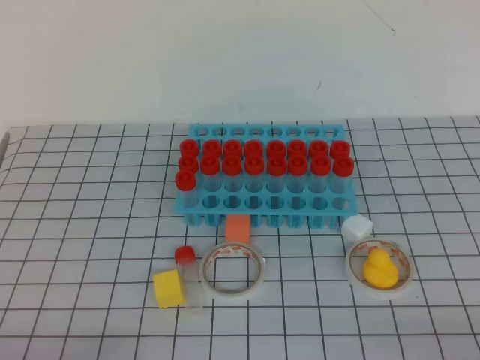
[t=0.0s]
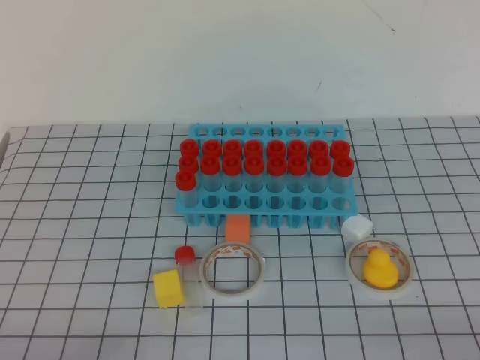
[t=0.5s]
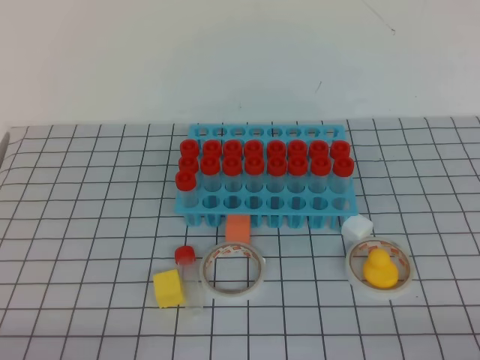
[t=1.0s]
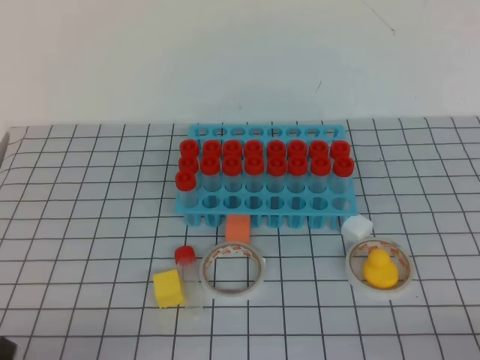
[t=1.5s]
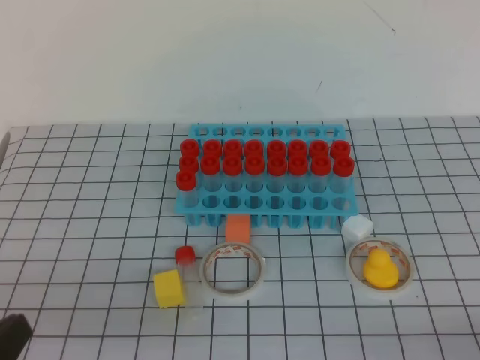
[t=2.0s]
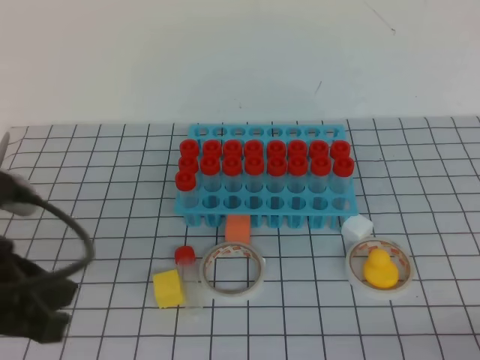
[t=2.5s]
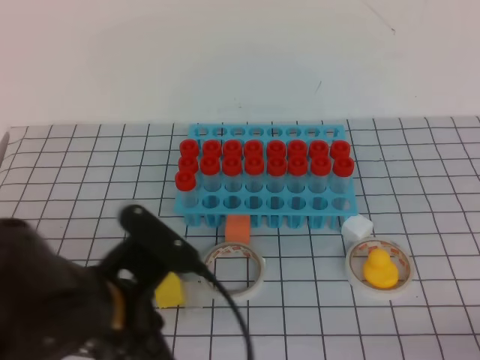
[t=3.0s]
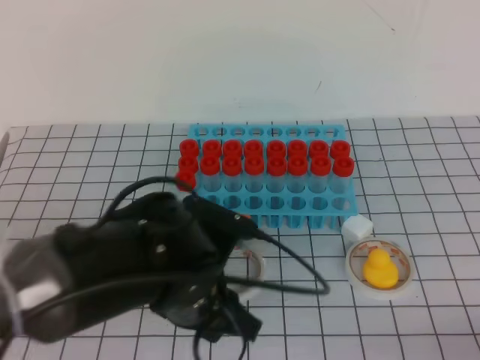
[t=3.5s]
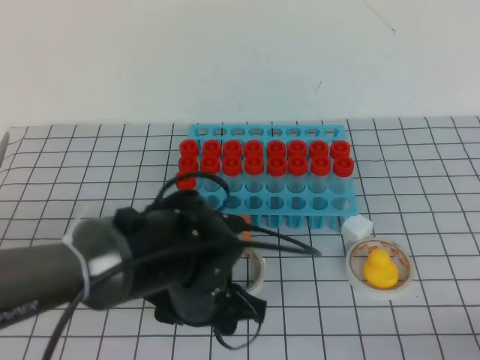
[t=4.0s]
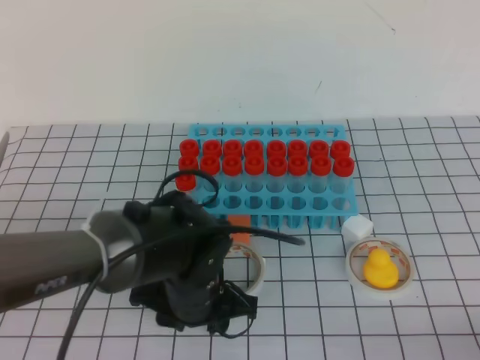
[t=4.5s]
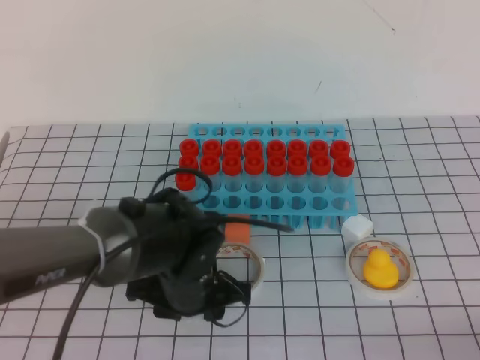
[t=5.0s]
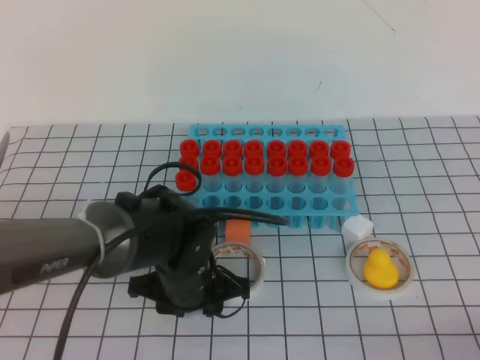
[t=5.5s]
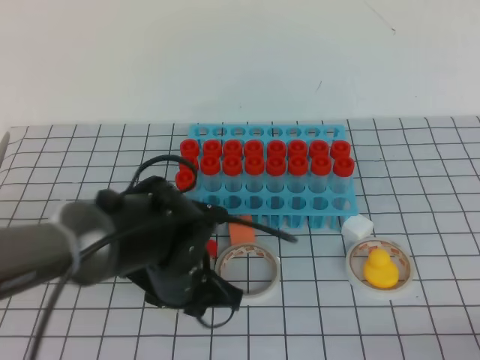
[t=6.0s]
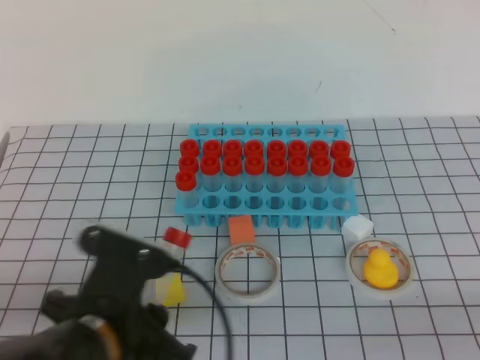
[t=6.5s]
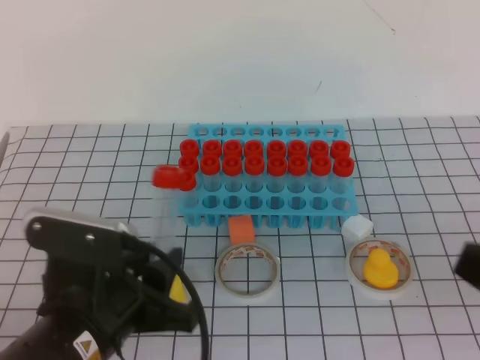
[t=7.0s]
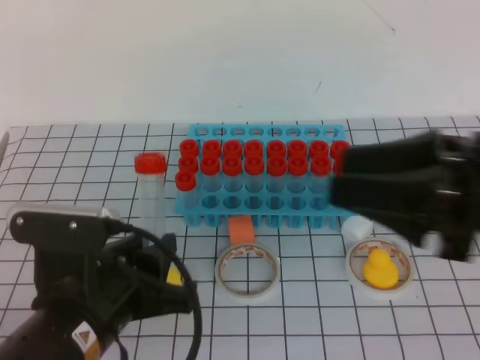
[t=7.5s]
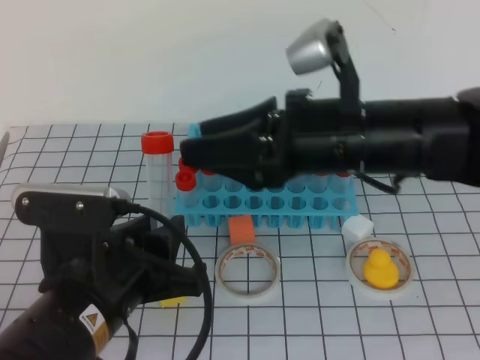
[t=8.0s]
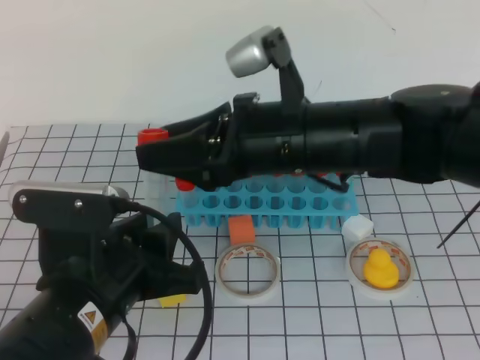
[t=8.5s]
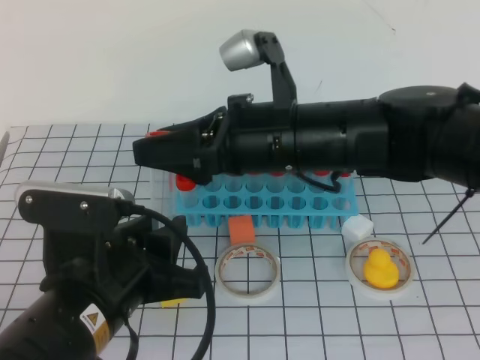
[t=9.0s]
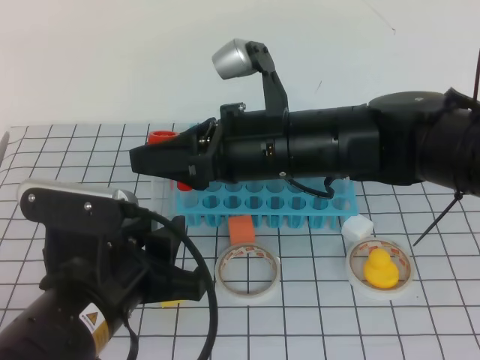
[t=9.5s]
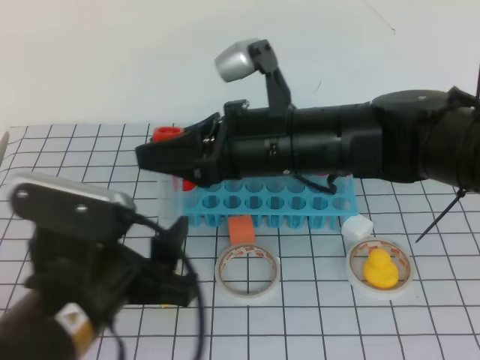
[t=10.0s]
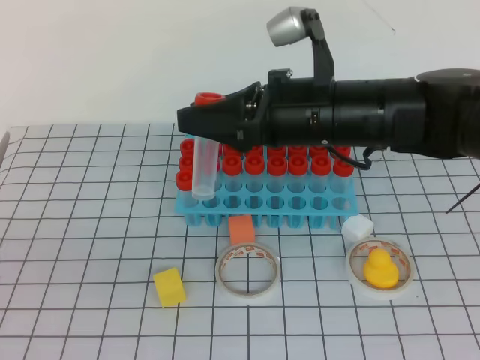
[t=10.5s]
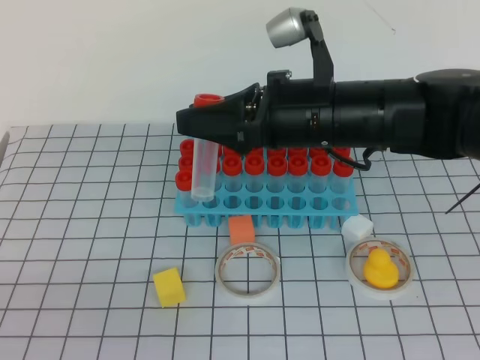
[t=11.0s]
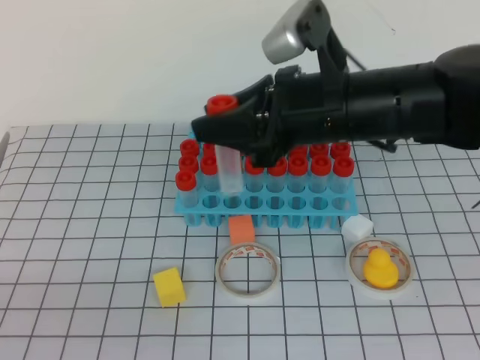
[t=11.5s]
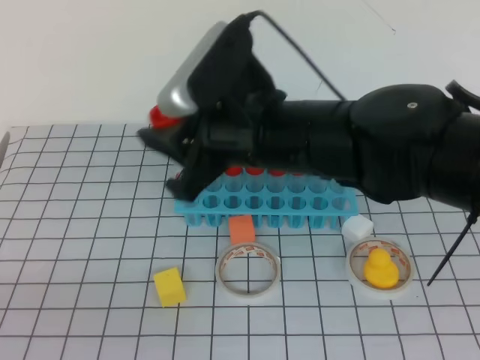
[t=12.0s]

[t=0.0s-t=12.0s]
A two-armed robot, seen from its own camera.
t=0.0s to t=2.0s: The left gripper travels upward by about 10 cm.
t=2.0s to t=4.0s: The left gripper heads forward and to the right, covering approximately 25 cm, and opens.
t=4.0s to t=6.0s: The left gripper closes.
t=6.0s to t=8.0s: The left gripper heads backward, upward and to the left, covering some 15 cm; the right gripper moves forward, to the left and upward, roughly 35 cm, and opens up.
t=8.0s to t=10.0s: The right gripper changes place by approximately 5 cm, and closes up; the left gripper opens.
t=10.0s to t=12.0s: The left gripper goes some 20 cm to the left and backward, and closes its fingers.

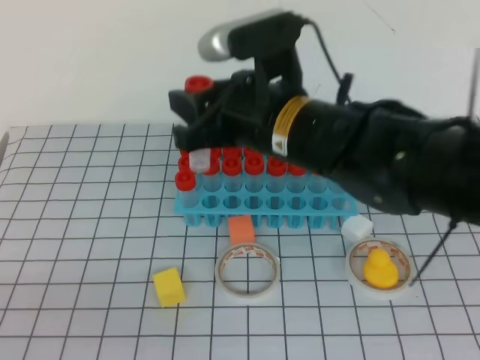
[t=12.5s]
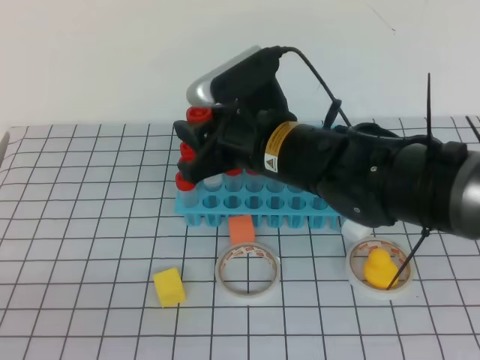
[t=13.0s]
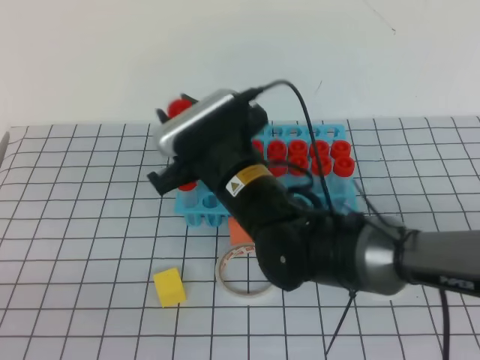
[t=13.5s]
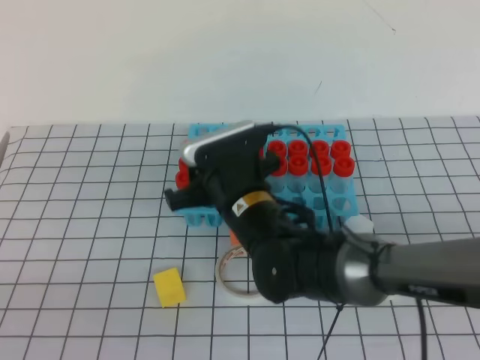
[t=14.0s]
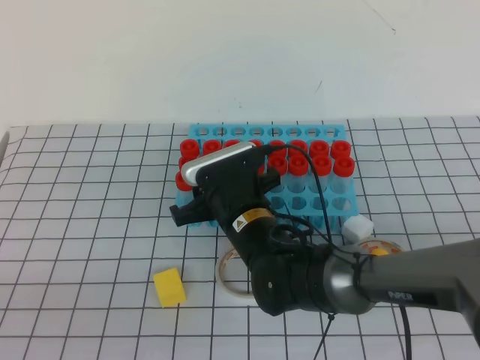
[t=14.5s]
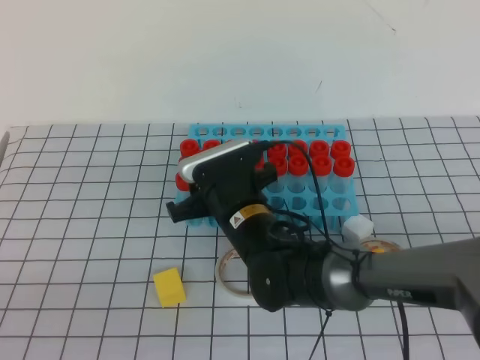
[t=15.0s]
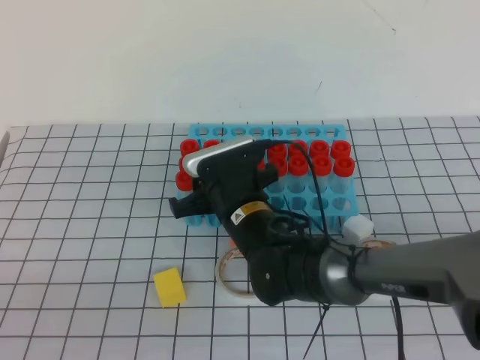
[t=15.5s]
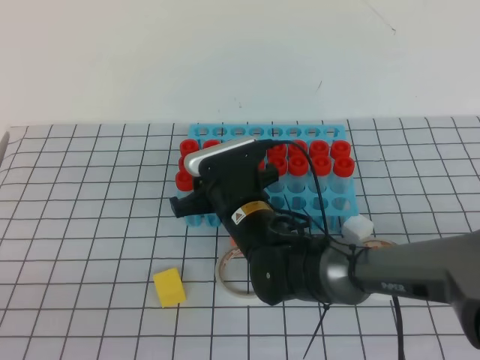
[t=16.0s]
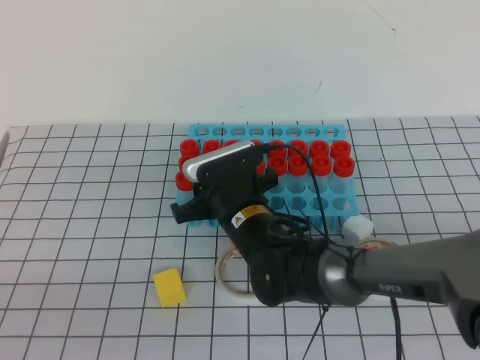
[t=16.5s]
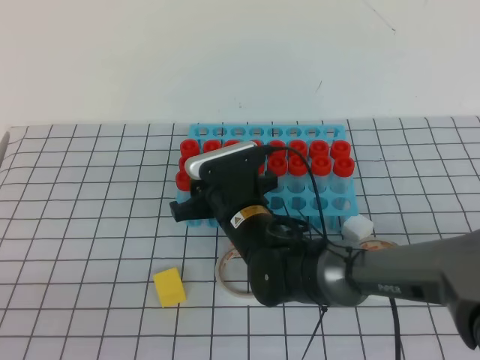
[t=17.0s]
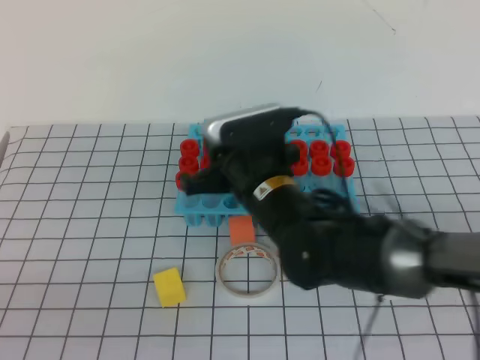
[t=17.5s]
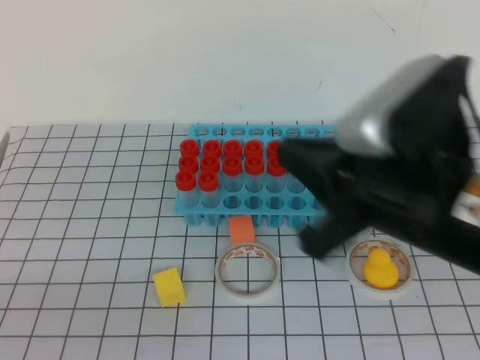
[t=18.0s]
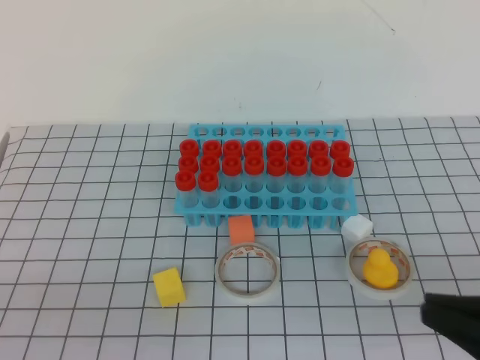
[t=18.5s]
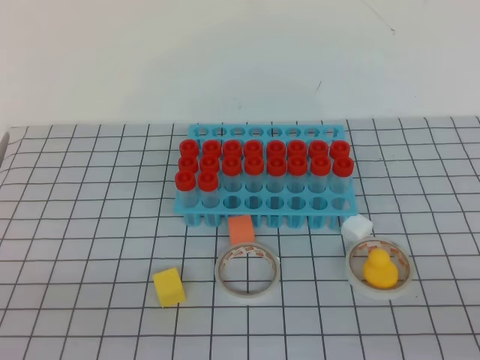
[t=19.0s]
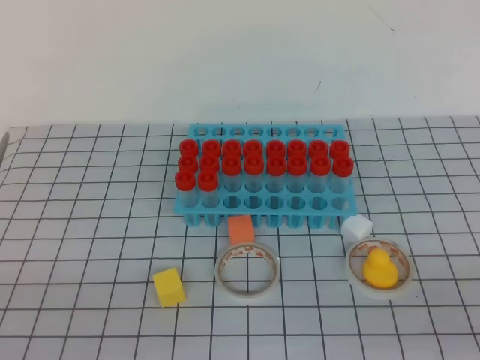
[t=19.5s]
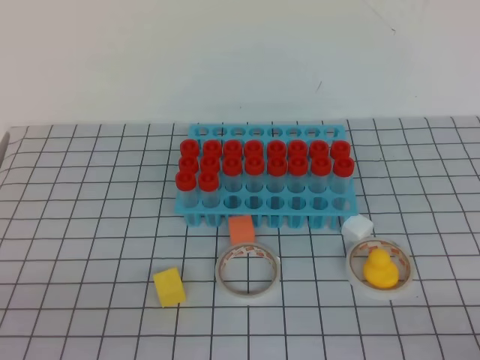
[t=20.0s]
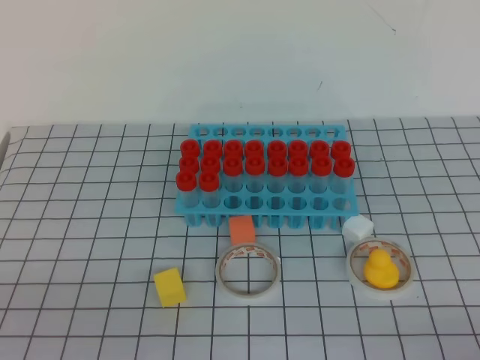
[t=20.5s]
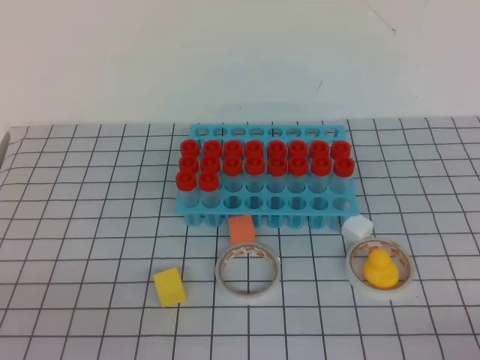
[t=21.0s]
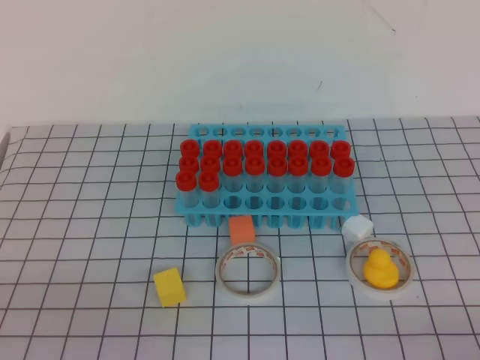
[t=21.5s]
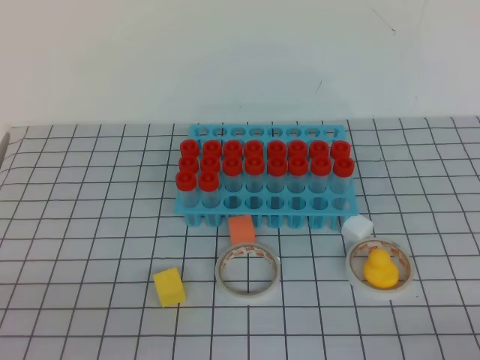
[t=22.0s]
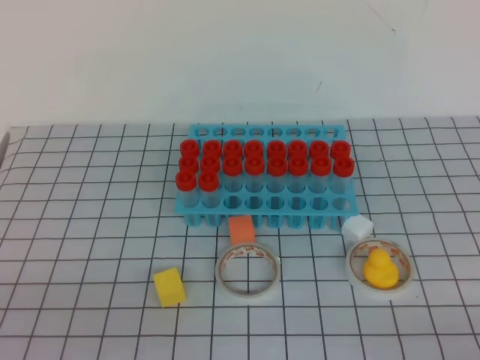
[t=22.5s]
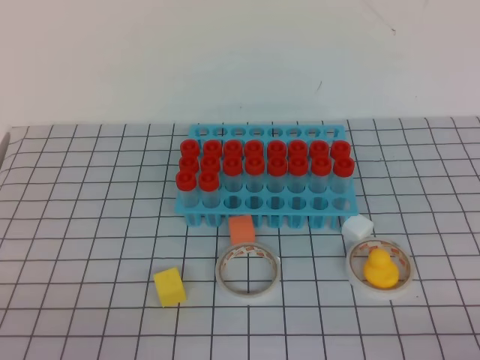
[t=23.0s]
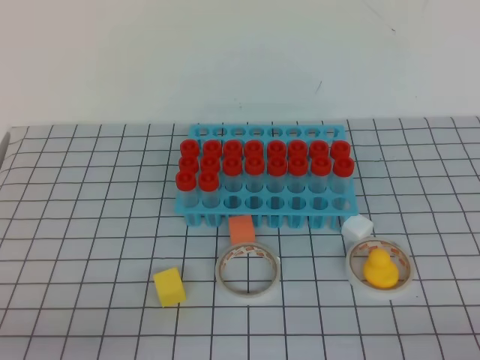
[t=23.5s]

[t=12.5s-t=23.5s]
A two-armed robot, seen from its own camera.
t=12.5s to t=14.5s: The right gripper heads downward, covering some 15 cm.
t=14.5s to t=16.0s: Both grippers stay put.
t=16.0s to t=18.0s: The right gripper heads upward, backward and to the right, covering approximately 25 cm, and closes its fingers.
t=18.0s to t=20.0s: The right gripper travels to the right, downward and backward by some 30 cm.

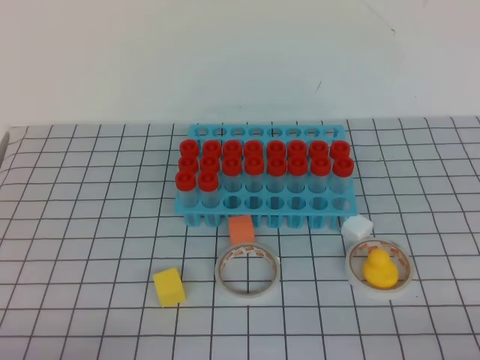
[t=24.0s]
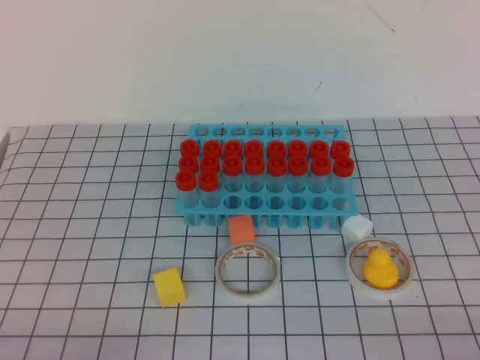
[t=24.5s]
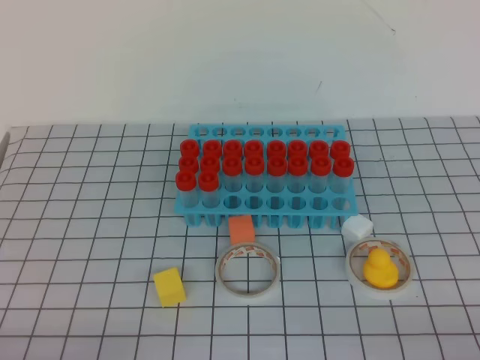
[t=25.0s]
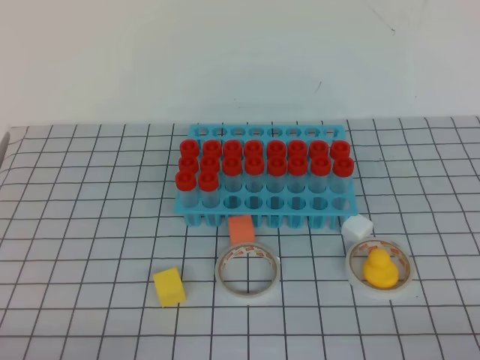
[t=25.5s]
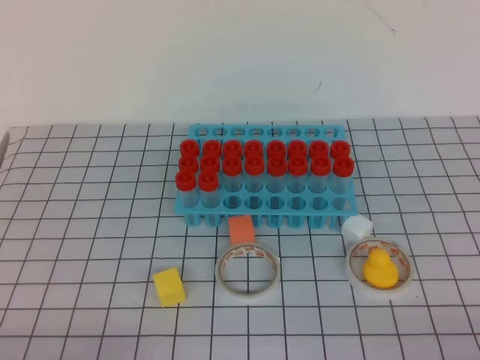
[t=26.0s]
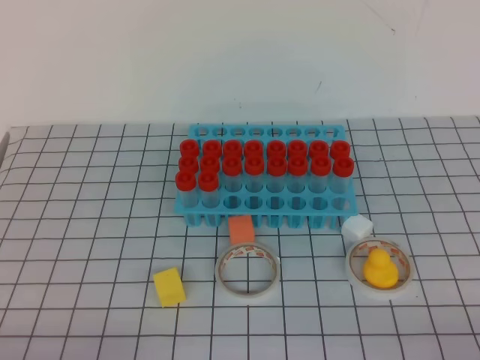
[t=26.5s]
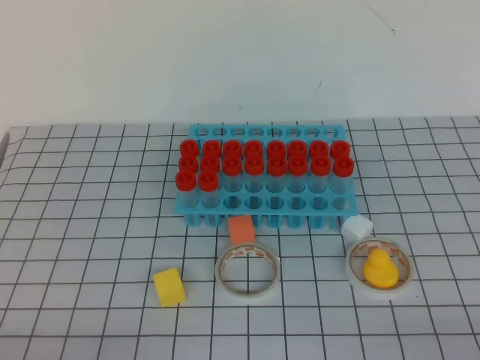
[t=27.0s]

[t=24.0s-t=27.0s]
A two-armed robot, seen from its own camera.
t=25.5s to t=27.0s: Neither gripper changes place.
